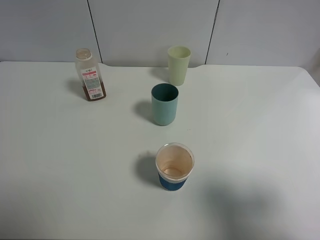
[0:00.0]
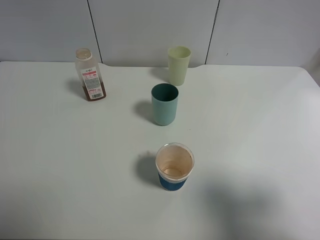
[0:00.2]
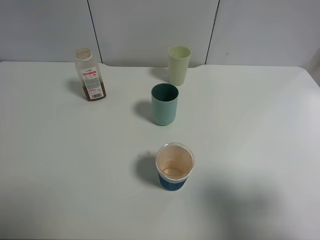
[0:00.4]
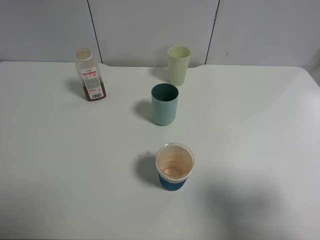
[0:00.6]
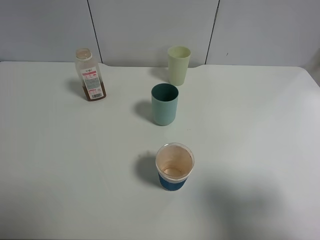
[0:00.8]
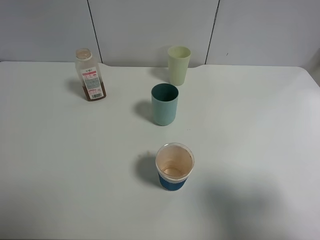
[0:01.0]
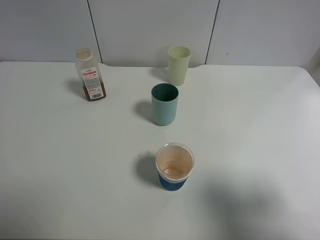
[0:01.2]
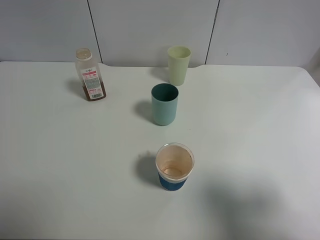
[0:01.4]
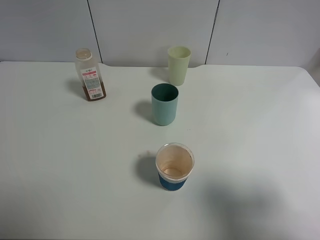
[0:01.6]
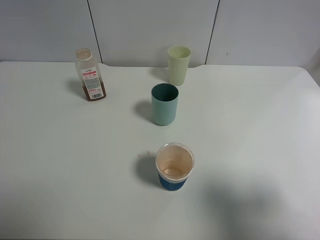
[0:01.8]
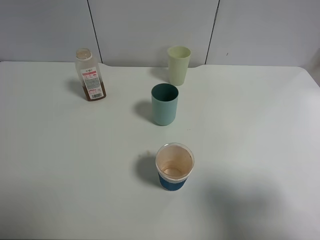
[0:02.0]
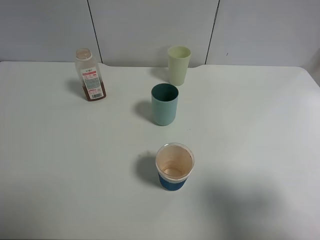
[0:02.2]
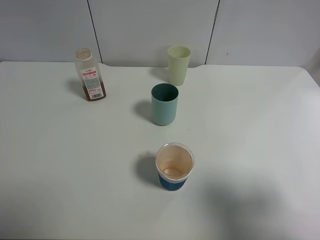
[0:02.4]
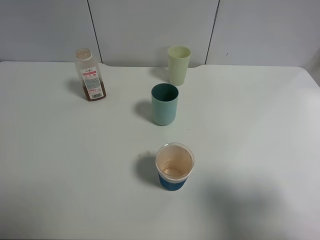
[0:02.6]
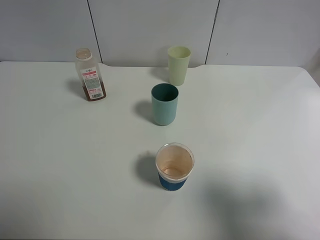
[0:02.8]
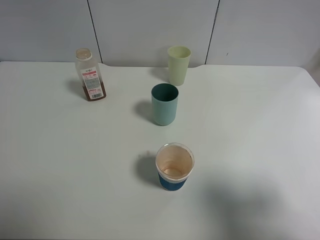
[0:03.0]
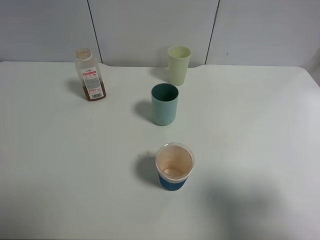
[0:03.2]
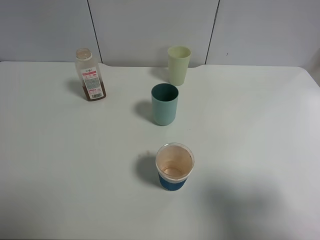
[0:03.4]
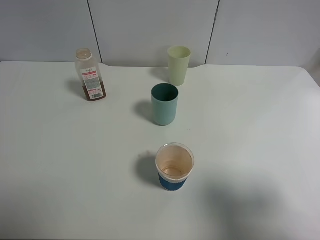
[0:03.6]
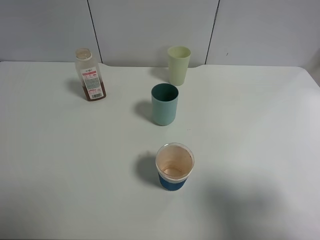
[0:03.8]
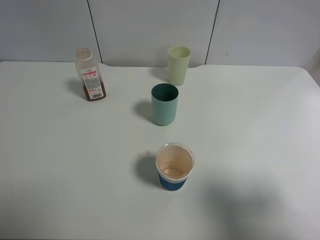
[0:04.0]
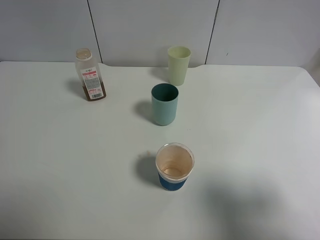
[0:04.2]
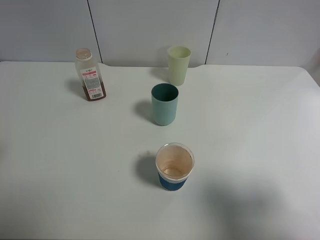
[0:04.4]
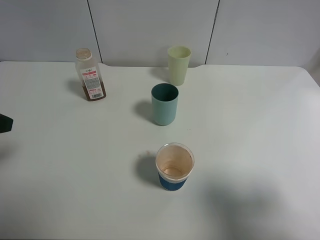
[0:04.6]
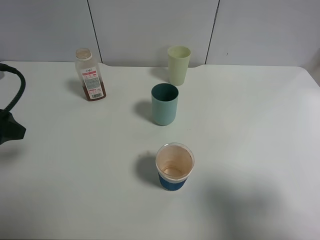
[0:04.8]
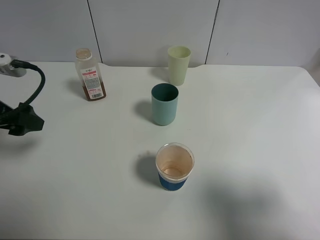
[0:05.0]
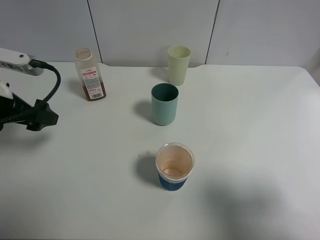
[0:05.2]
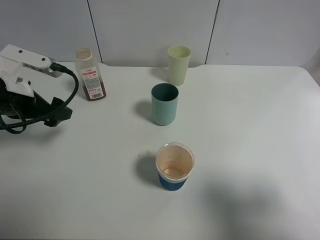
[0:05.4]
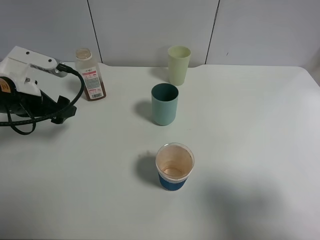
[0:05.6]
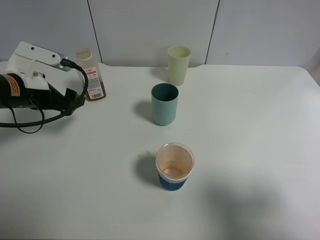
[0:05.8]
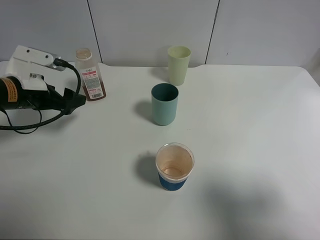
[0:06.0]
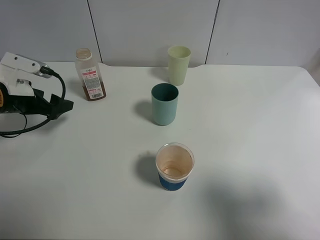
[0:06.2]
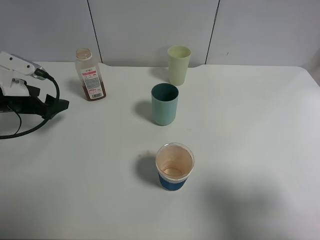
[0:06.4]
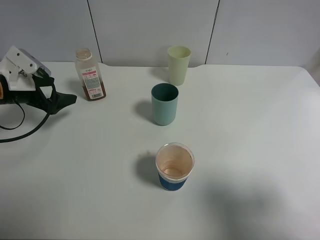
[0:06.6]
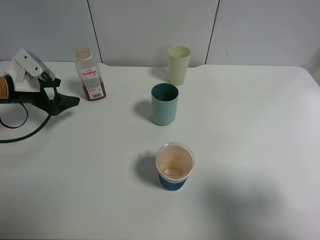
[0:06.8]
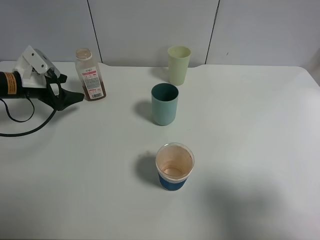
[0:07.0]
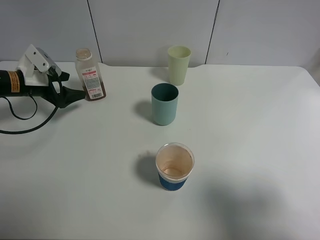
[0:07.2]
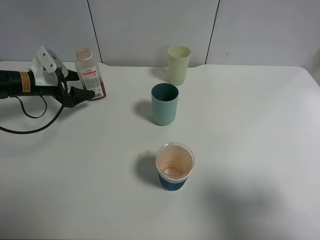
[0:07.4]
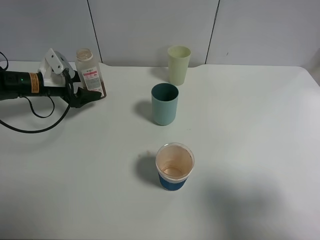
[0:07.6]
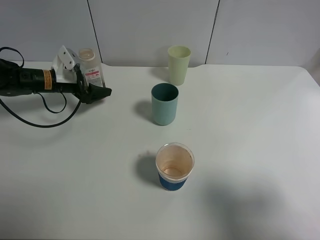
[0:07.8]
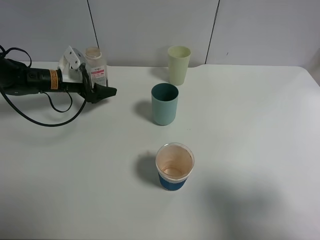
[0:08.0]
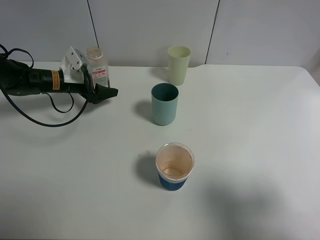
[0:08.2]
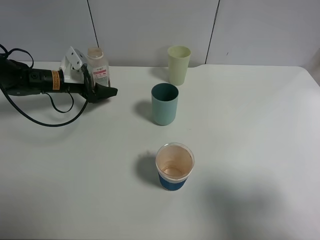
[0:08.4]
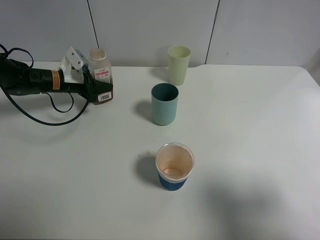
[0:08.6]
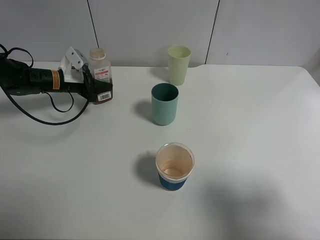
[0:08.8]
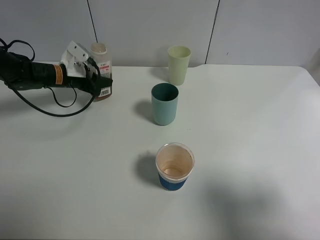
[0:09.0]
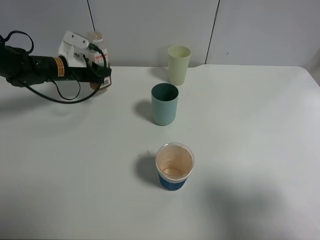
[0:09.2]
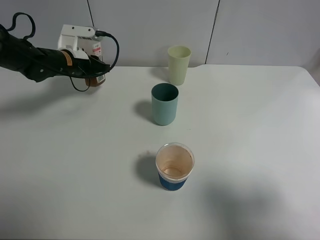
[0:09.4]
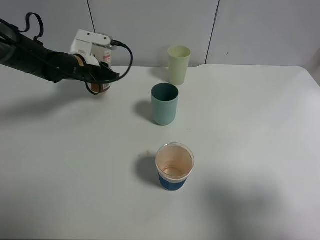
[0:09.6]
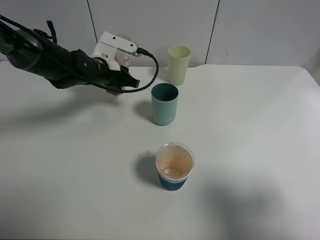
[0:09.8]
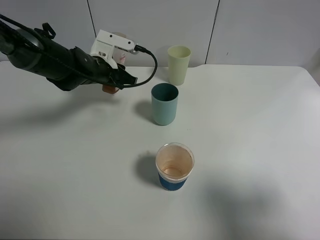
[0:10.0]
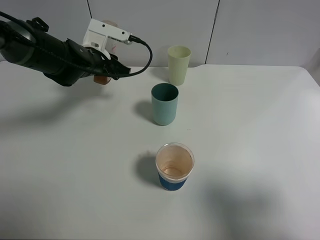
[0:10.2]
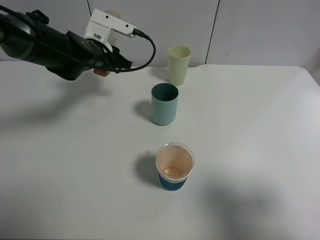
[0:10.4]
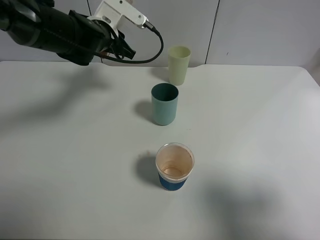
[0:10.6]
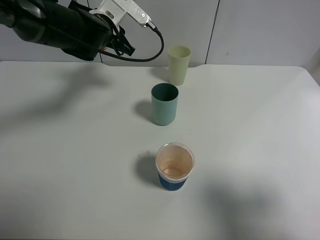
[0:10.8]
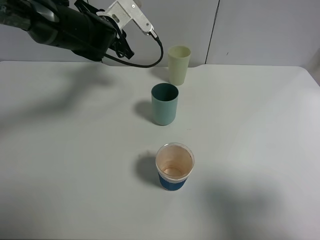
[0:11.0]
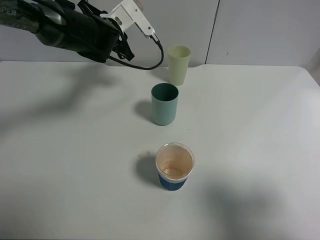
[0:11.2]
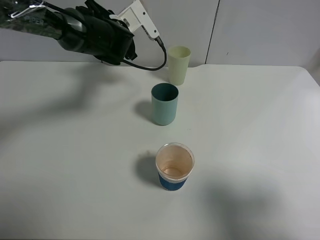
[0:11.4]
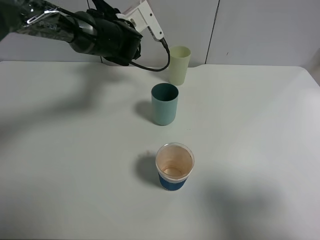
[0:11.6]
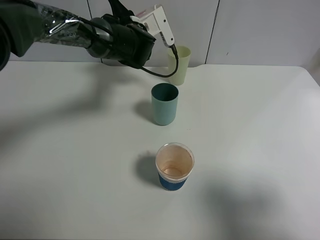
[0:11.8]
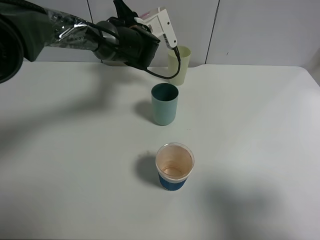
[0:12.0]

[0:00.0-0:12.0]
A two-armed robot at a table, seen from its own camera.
Task of the whole recording: use a clamp to hold the bottle of the drink, pour the beverage into a random cup, then clamp the cup containing the drink and pour the drink into another random cup.
Step, 0:00.0 to 0:10.2: Pick up the drink bottle with left gripper.
0:00.0 to 0:03.0: Neither gripper changes place.
0:04.4 to 0:06.0: The left gripper heads forward and downward, covering some 20 cm.
0:06.0 to 0:07.6: The left gripper heads forward and downward, covering about 10 cm.
0:07.6 to 0:09.0: The left gripper ends up some 5 cm from where it was, and closes its fingers.
0:09.0 to 0:10.4: The left gripper is displaced to the right and upward by roughly 10 cm.
0:10.4 to 0:12.0: The left gripper is displaced to the right and forward by roughly 10 cm.

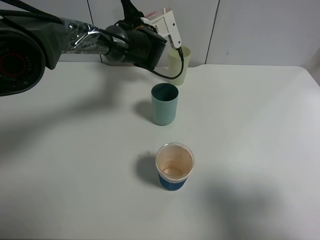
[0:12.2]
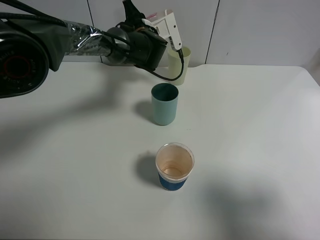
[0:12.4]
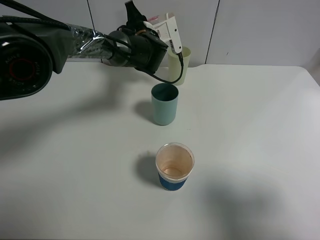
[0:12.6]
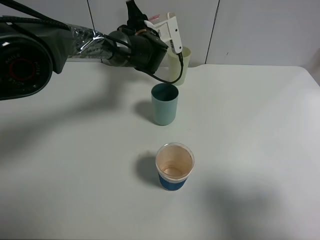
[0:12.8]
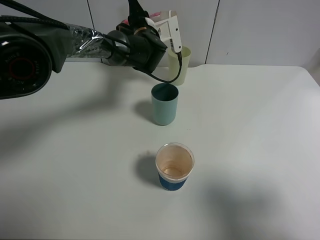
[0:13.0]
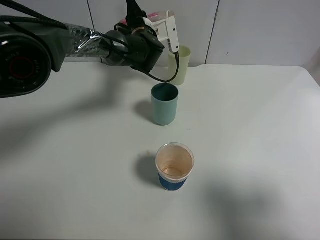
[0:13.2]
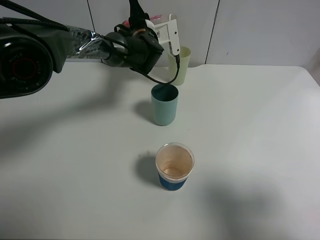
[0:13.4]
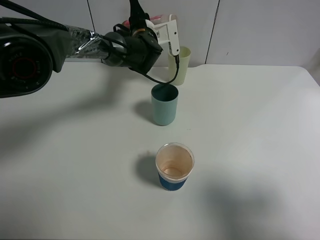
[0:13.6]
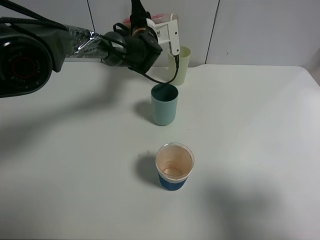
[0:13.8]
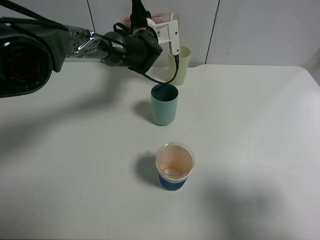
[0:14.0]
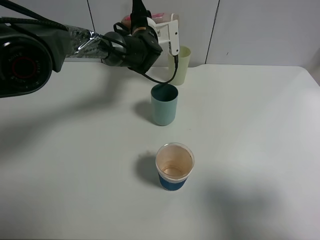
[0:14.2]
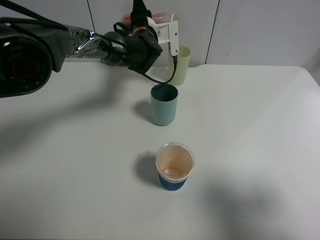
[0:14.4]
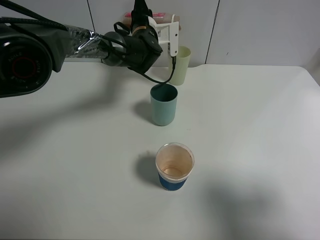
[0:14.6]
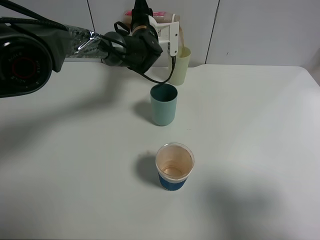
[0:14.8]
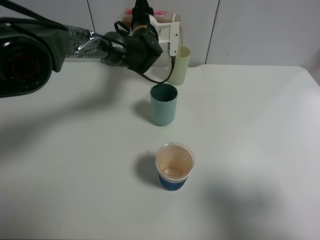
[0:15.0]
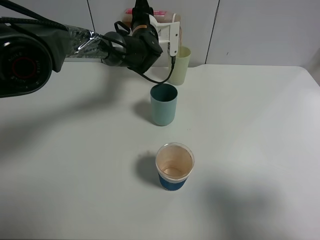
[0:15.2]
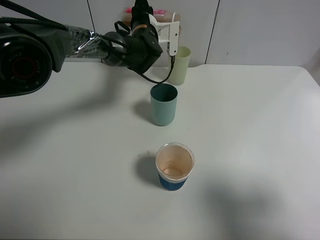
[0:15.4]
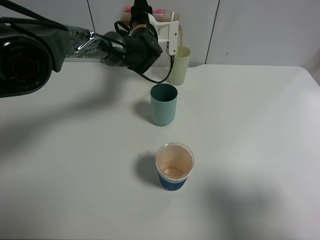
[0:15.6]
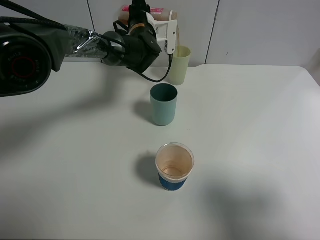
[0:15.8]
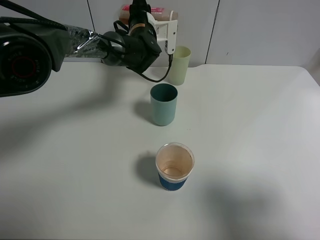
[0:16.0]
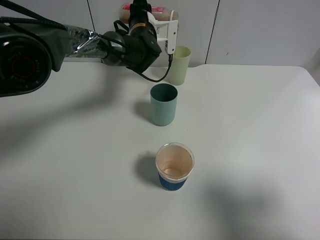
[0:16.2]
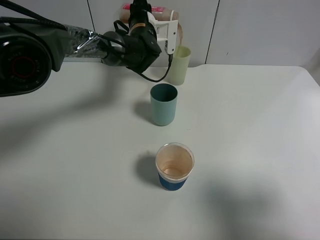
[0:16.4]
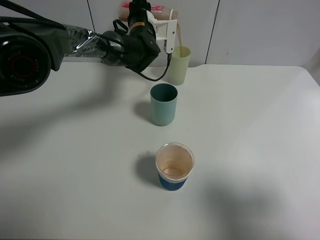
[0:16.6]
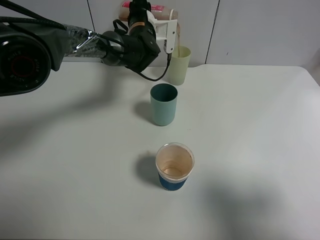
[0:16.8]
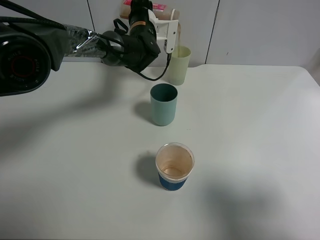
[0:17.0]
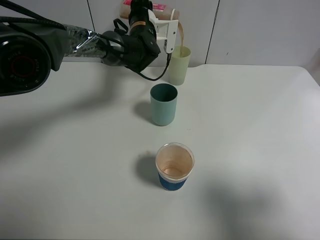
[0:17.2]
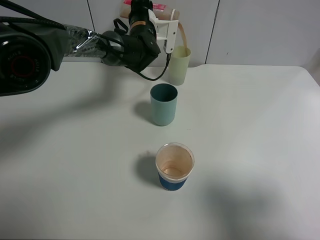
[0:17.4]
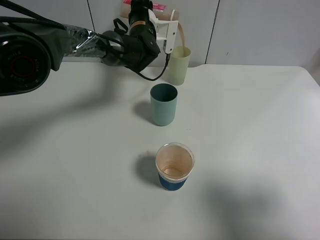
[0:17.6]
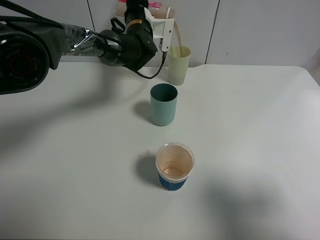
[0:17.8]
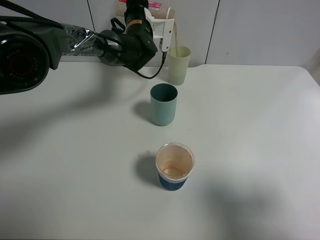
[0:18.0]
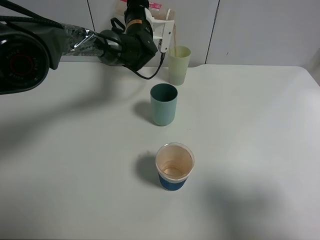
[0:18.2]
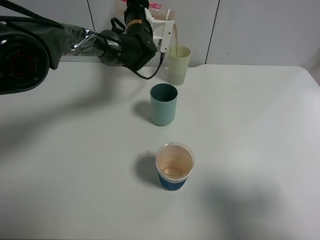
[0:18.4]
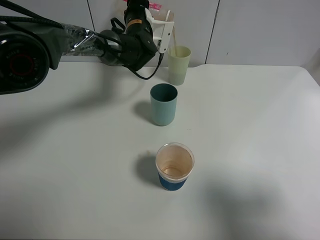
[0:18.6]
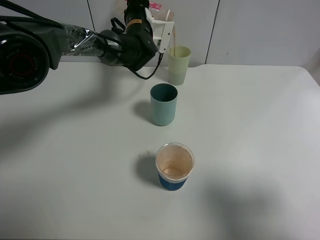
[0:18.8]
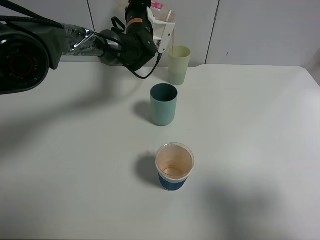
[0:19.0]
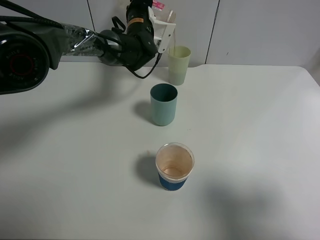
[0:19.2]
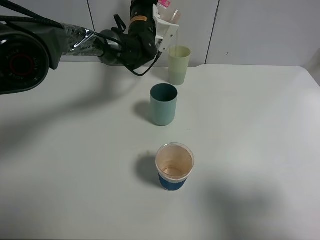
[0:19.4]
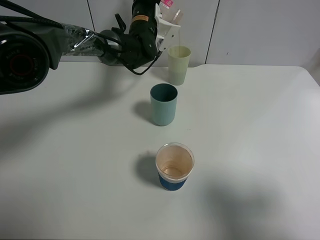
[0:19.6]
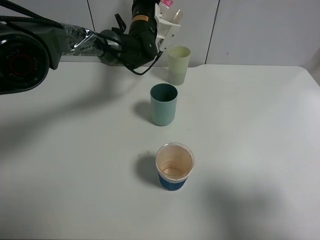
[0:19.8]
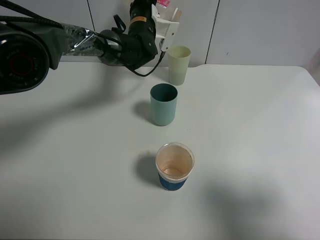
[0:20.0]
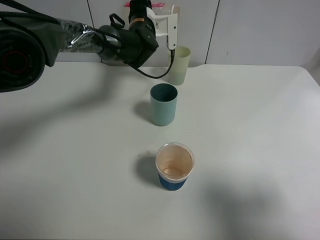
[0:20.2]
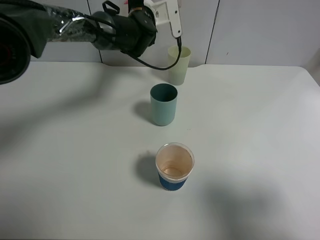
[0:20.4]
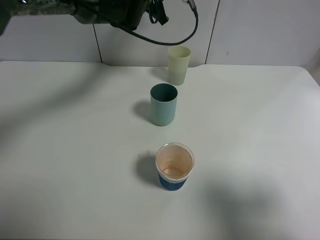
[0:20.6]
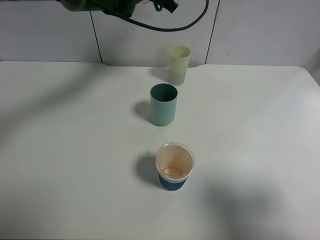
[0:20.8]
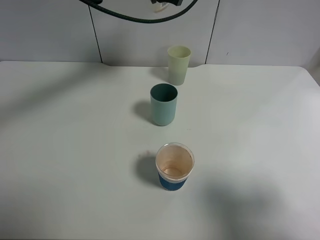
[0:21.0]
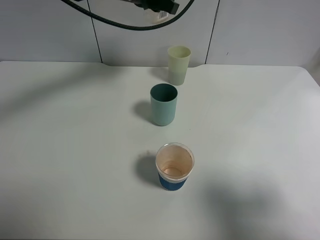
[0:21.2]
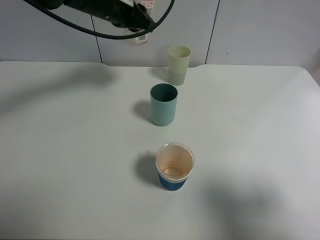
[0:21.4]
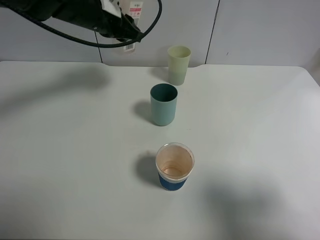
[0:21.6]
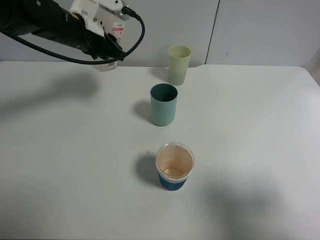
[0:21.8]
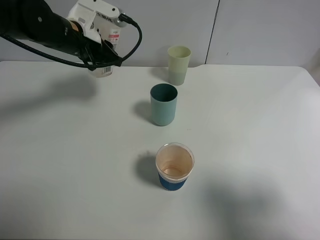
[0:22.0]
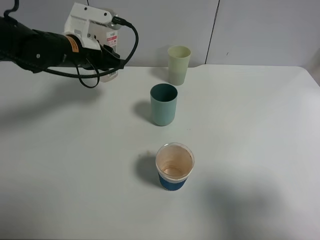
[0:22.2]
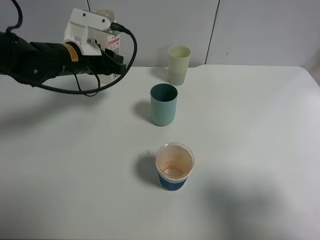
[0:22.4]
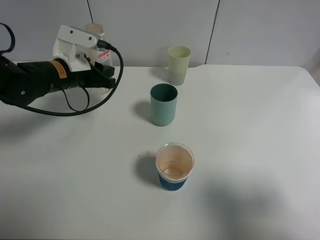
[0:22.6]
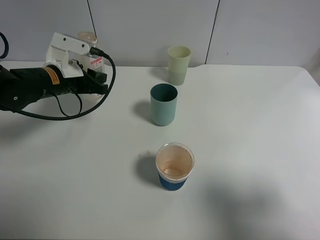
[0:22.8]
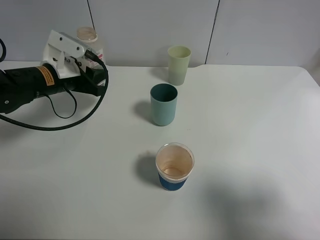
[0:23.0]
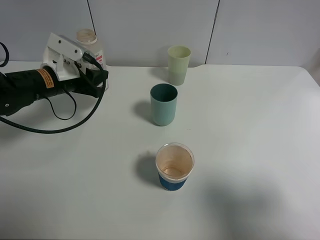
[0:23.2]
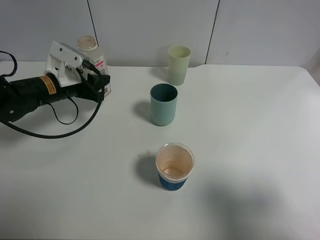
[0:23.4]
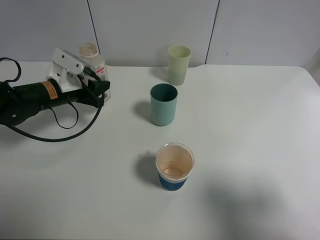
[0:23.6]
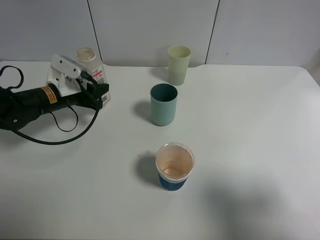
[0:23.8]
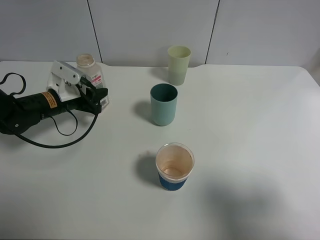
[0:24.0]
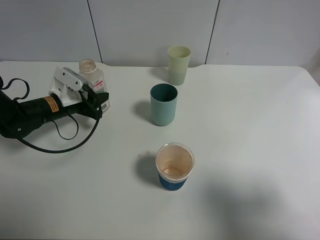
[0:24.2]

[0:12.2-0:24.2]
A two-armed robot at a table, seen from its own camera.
Task of the whole recording: use a clamp to hold the bottle of the drink, pour the beverage into a random cup, then clamp the cup containing the drink and pour the drink into another random cup.
Step, 0:12.2 to 0:20.0: Pour the drink into the green plastic cup with left gripper.
0:12.2 to 0:13.8: The grippers move only a little.
0:13.8 to 0:15.2: The grippers stay close to where they were, moving slightly.
0:15.2 to 0:16.6: Both grippers stay put.
0:16.6 to 0:18.2: The grippers make only small movements.
0:18.2 to 0:19.8: The grippers stay close to where they were, moving slightly.
0:19.8 to 0:21.2: The left gripper travels upward and backward by some 10 cm.
0:21.2 to 0:22.6: The left gripper is displaced downward, to the left and backward by some 20 cm.
0:22.6 to 0:24.2: The left gripper heads downward, covering approximately 10 cm.
